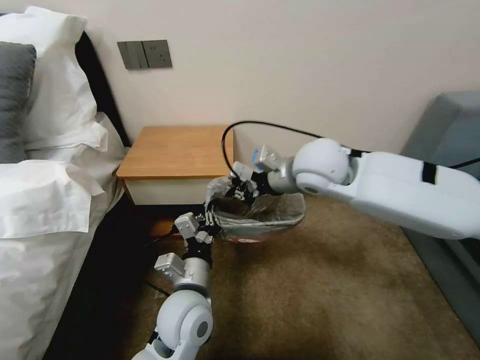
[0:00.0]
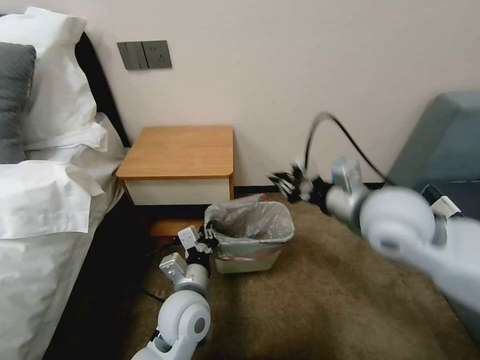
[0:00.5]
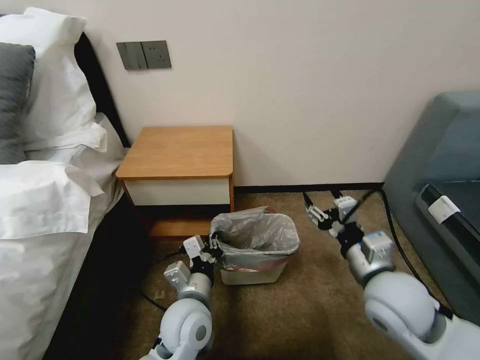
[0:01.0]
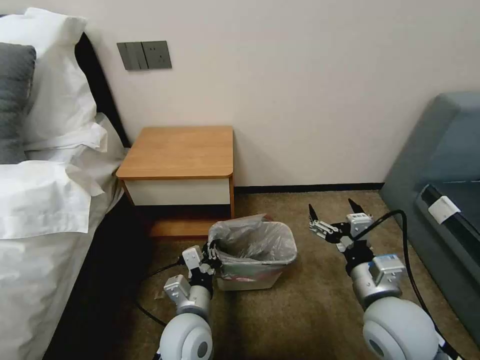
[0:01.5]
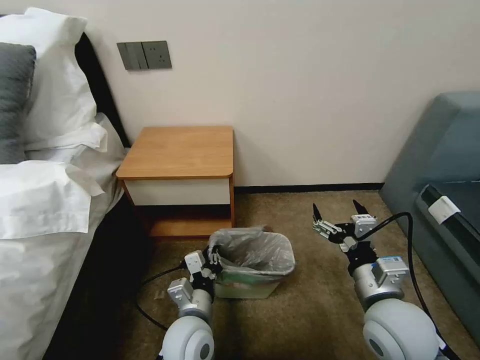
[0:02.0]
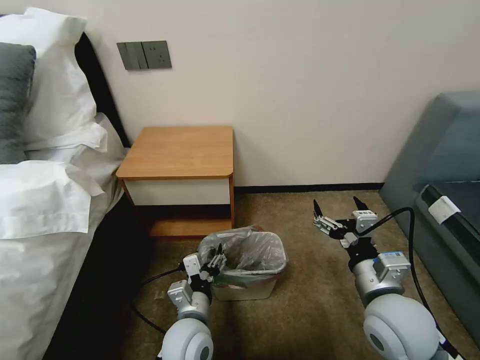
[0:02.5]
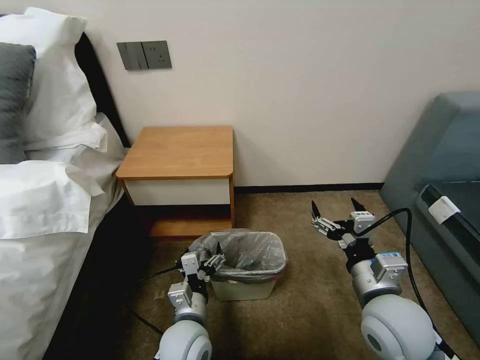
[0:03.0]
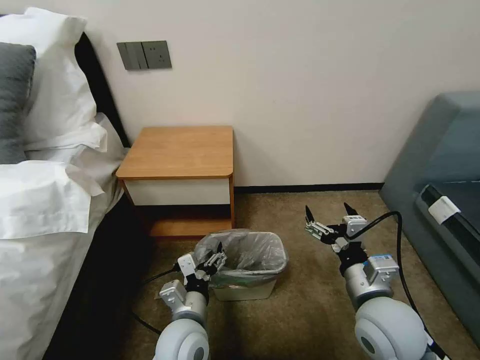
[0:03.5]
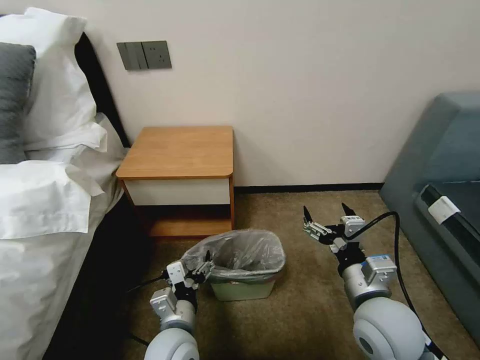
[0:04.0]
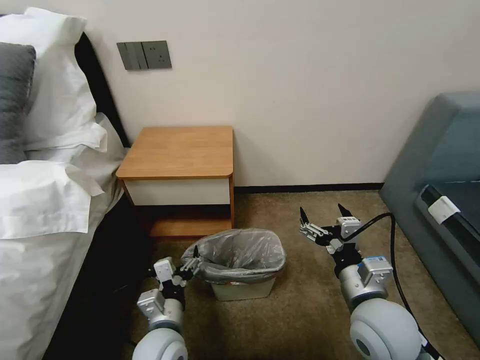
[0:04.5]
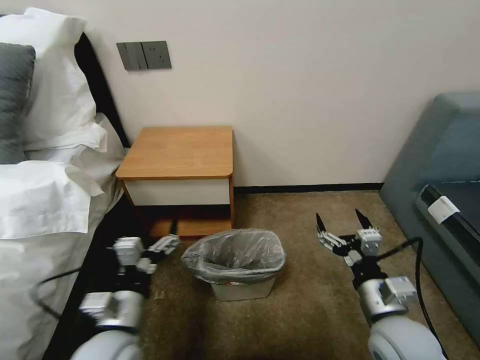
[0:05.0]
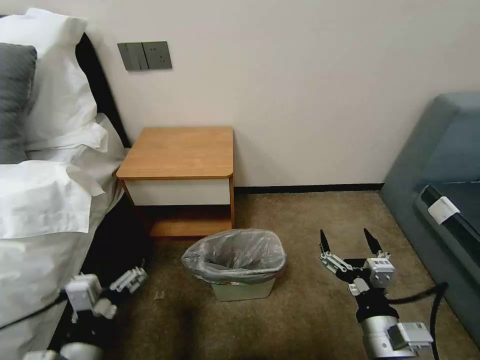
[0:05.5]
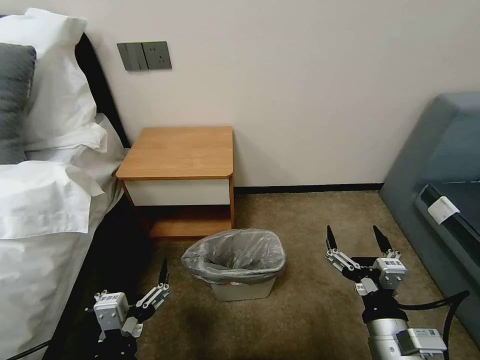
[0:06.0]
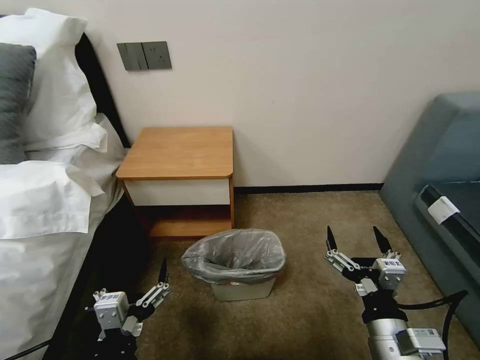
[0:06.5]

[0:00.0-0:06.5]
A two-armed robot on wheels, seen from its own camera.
Task of the whole recording: Pick up the garbage bag from the table and place it over the trash can.
0:00.0 to 0:02.0: The left gripper is displaced downward by some 10 cm, while the right gripper travels backward, downward and to the right by some 30 cm, and opens up.
0:02.0 to 0:04.5: The left gripper changes place by approximately 5 cm, and opens its fingers.
0:04.5 to 0:06.5: The right gripper heads backward, covering approximately 10 cm. Meanwhile the left gripper travels backward and upward by about 15 cm.

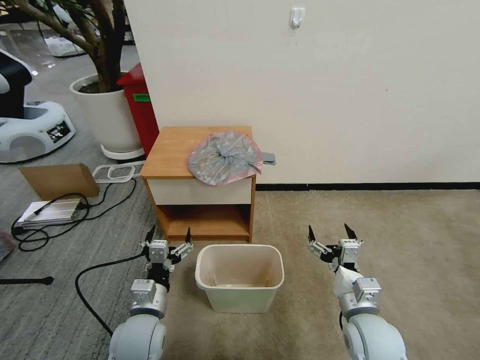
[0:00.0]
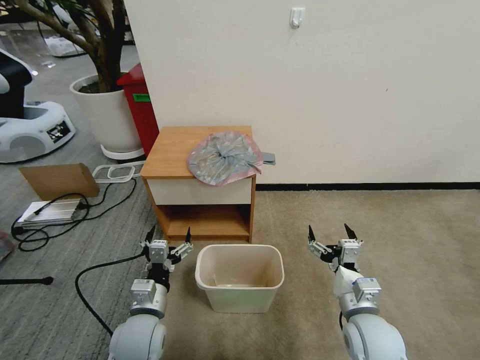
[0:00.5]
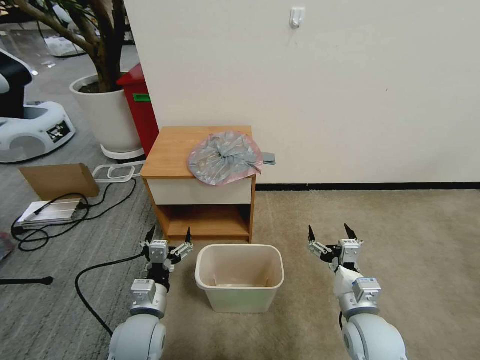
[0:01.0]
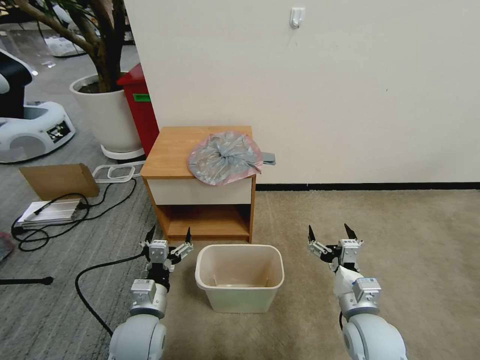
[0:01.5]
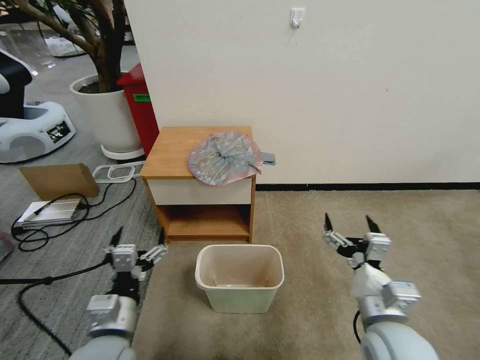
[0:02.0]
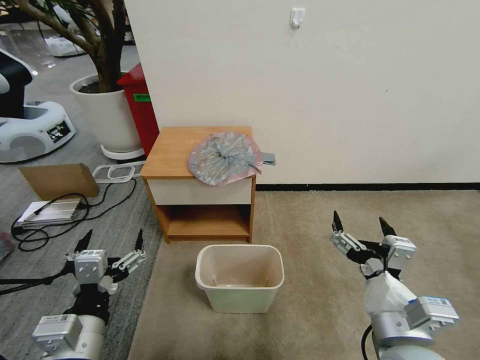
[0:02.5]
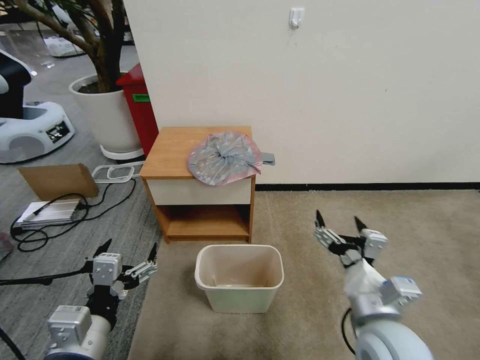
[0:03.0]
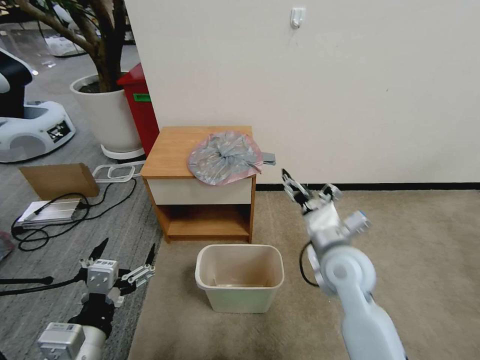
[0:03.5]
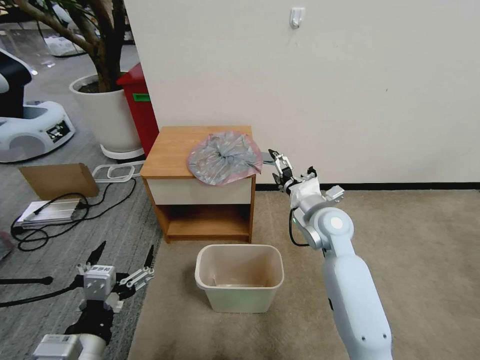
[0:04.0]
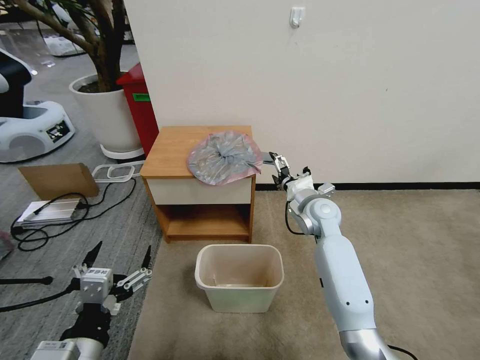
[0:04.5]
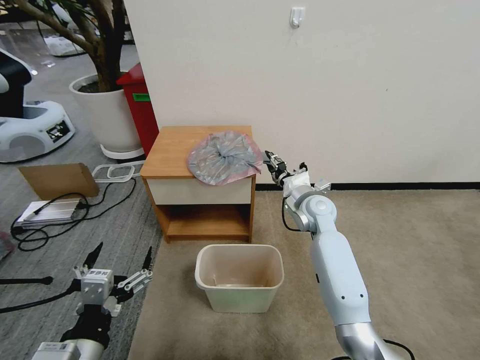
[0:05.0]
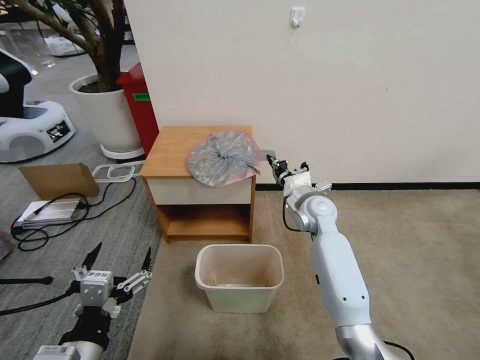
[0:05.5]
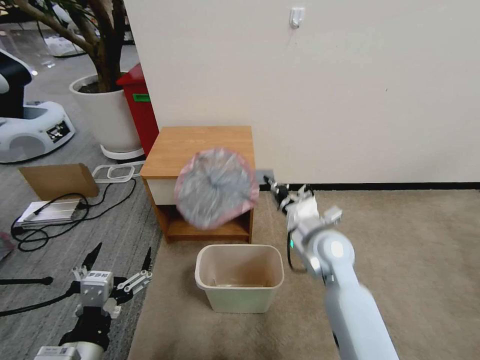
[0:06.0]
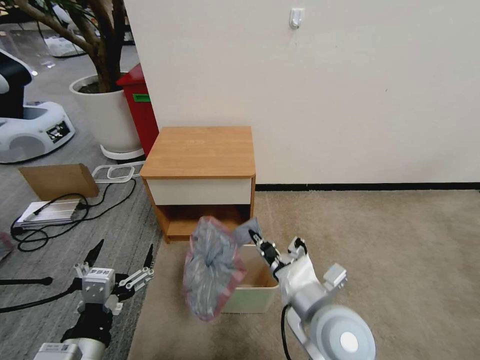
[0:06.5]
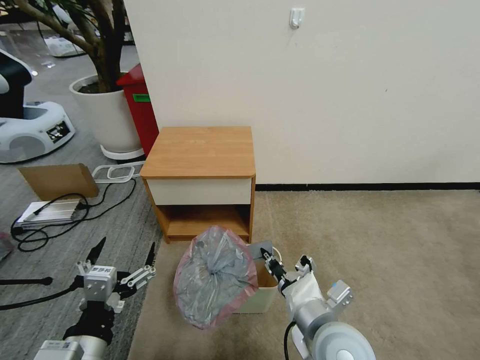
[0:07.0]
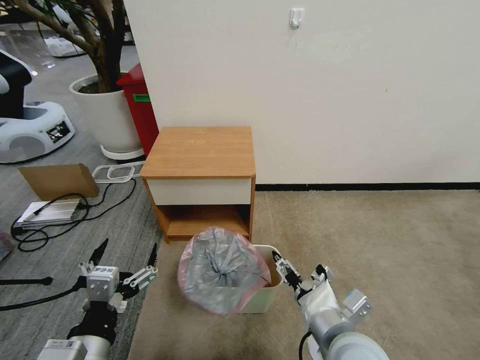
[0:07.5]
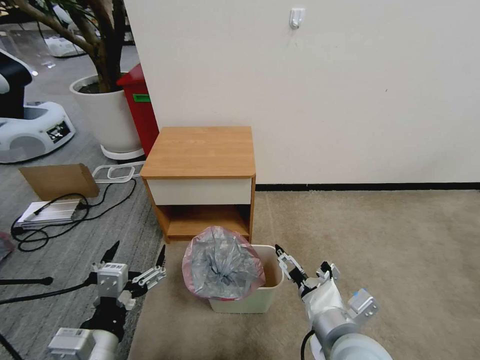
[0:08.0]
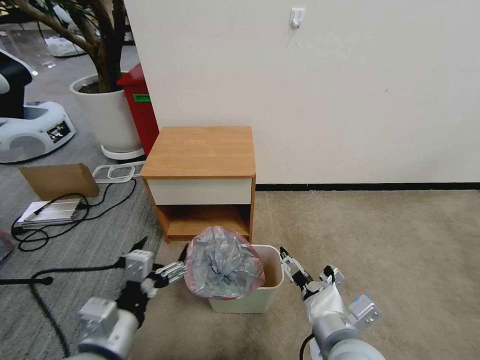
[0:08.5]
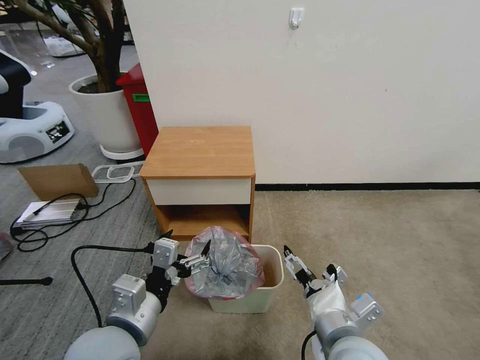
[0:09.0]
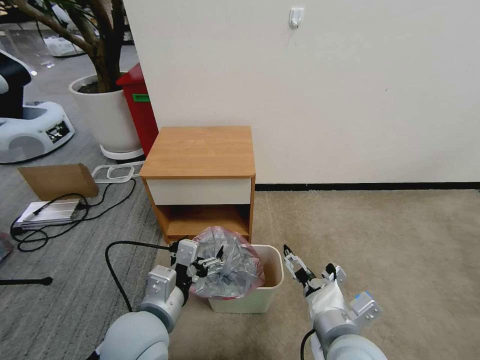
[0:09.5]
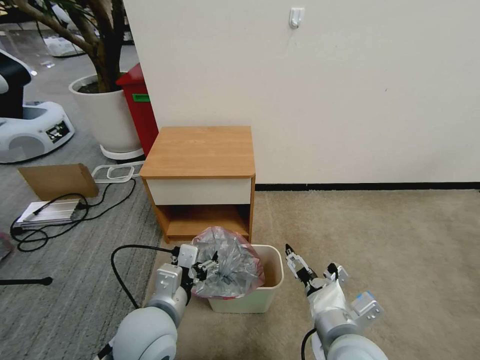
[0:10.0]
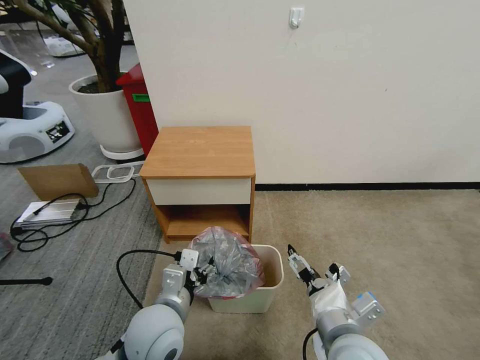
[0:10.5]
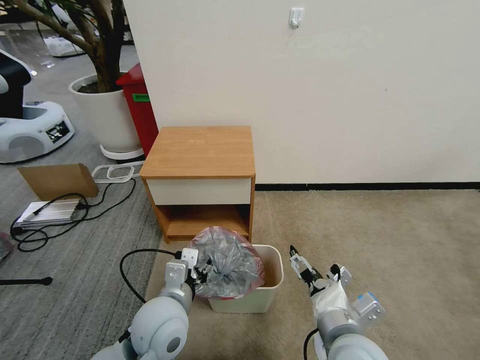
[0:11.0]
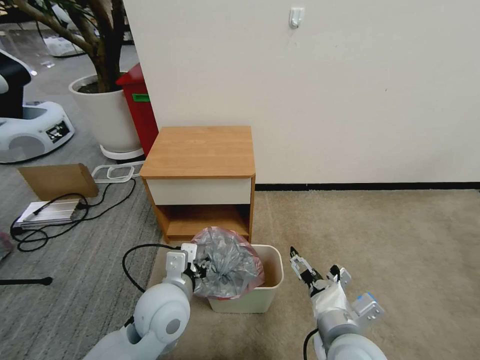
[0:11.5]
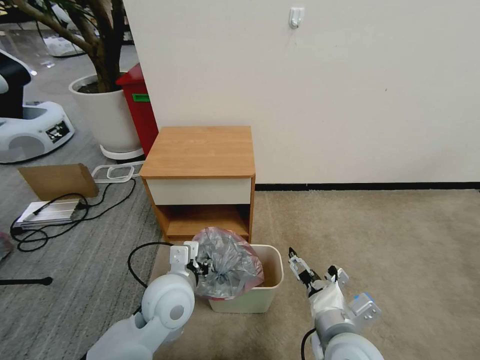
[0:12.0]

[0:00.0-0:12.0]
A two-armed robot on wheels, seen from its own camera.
Task of the whole recording: Pick up the garbage bag from the table and place it over the trash can.
0:02.0 to 0:04.0: The left gripper moves backward and upward, approximately 10 cm. The right gripper goes some 25 cm forward.
0:04.0 to 0:06.0: The right gripper heads backward, covering roughly 5 cm, and closes its fingers.
0:06.0 to 0:08.0: The right gripper shifts approximately 20 cm backward, and opens its fingers.
0:08.0 to 0:10.0: The left gripper goes some 10 cm forward and to the right.
0:10.0 to 0:12.0: The left gripper moves forward, approximately 5 cm.

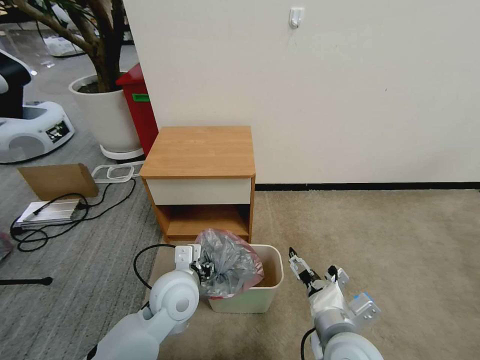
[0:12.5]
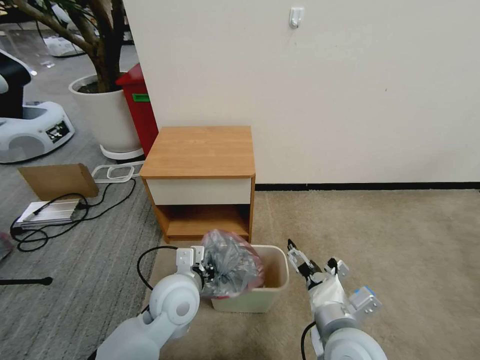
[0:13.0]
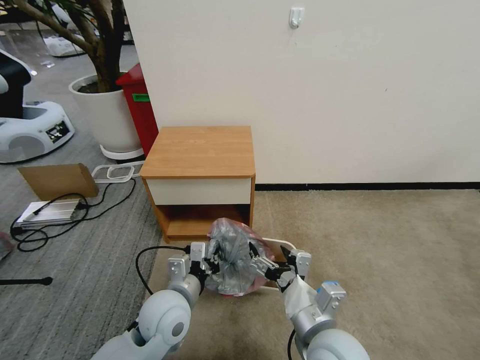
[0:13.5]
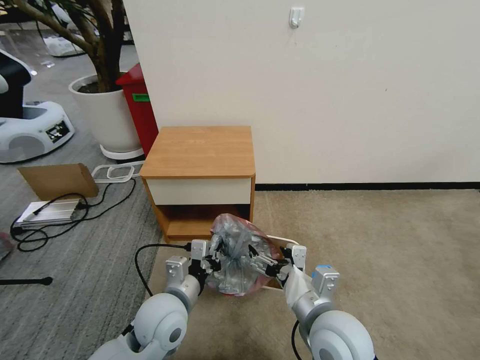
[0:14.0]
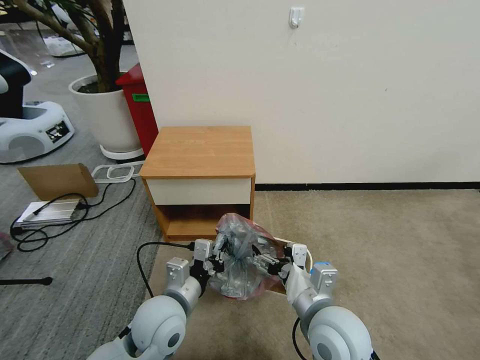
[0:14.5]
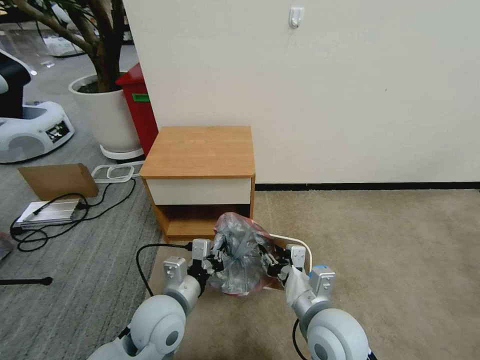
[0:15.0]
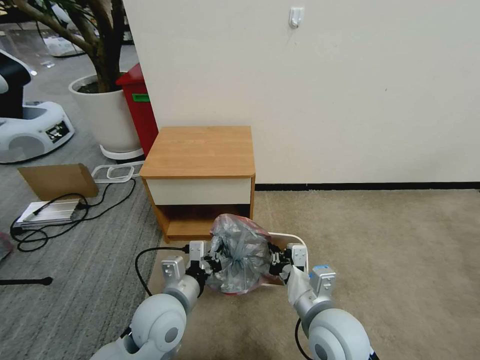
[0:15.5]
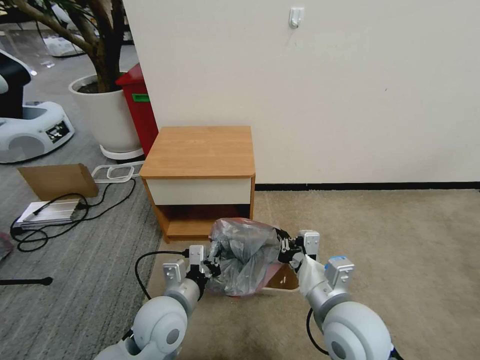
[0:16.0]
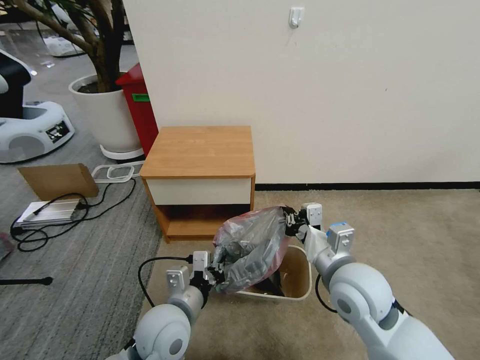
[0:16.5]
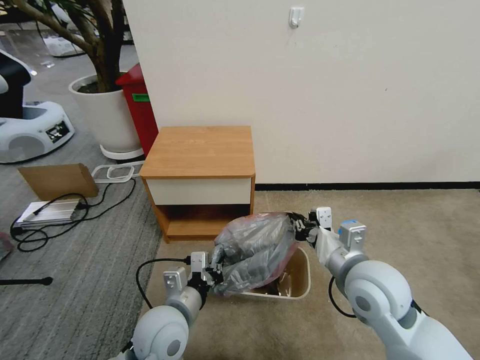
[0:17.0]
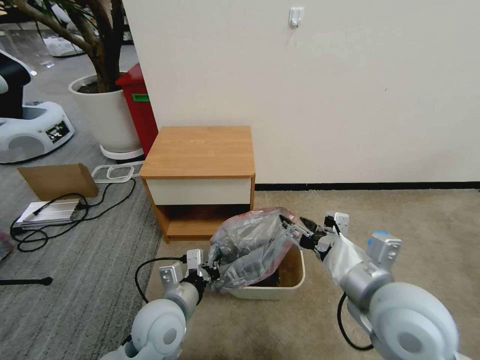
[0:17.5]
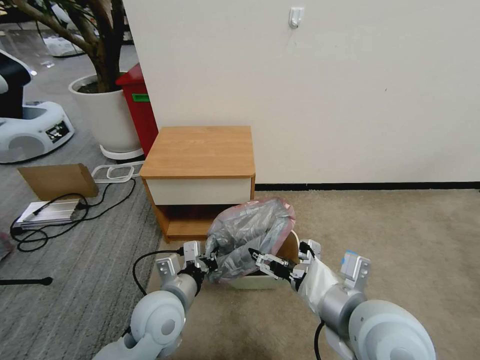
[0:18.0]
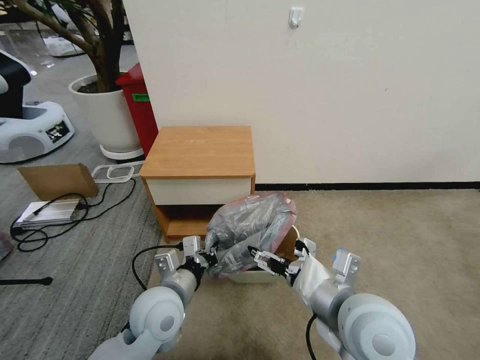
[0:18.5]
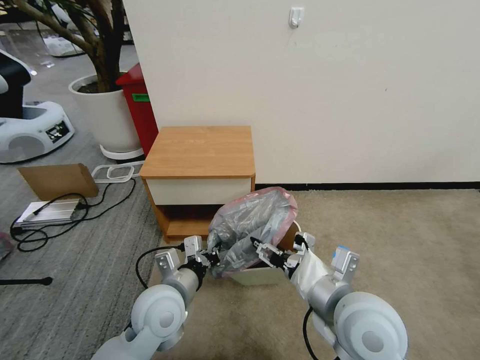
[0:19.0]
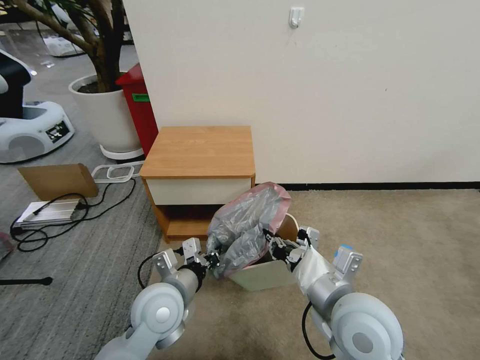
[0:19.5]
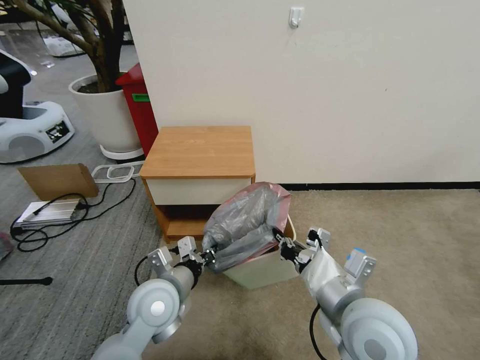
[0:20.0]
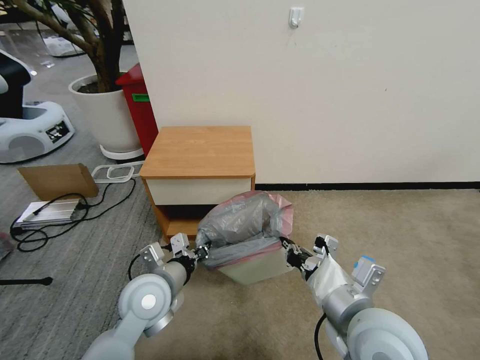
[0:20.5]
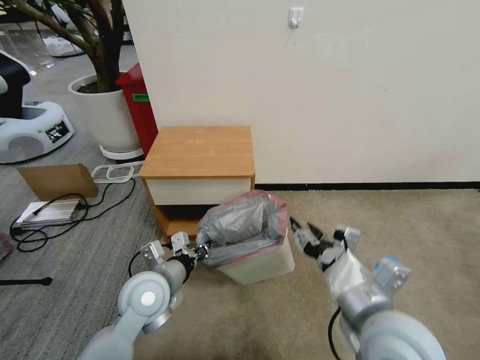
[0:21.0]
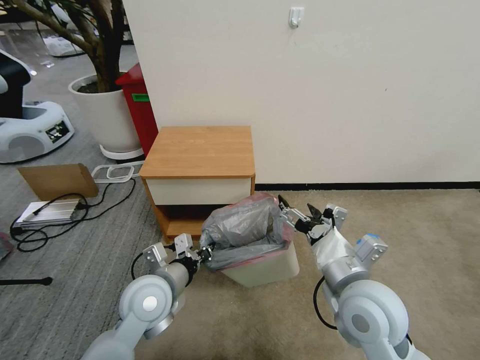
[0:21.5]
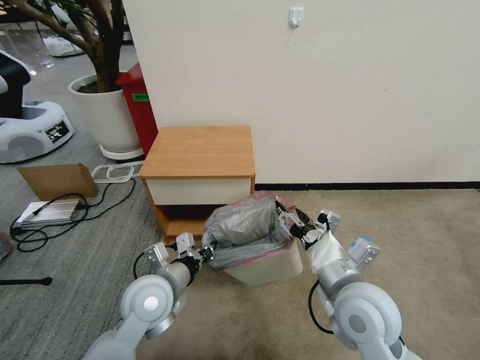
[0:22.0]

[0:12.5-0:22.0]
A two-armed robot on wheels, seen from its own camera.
Task of the whole recording: Pick up the garbage bag from the table and place it over the trash can.
0:12.5 to 0:14.5: The left gripper shifts by roughly 5 cm, and closes its fingers.
0:14.5 to 0:16.5: The right gripper heads forward, covering some 5 cm, and closes.
0:16.5 to 0:18.0: The right gripper is displaced backward and upward by roughly 10 cm, and opens.
0:18.0 to 0:20.0: The right gripper closes its fingers.
0:20.0 to 0:22.0: The right gripper opens.
